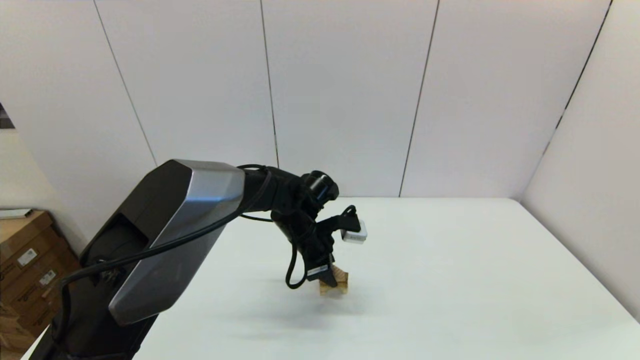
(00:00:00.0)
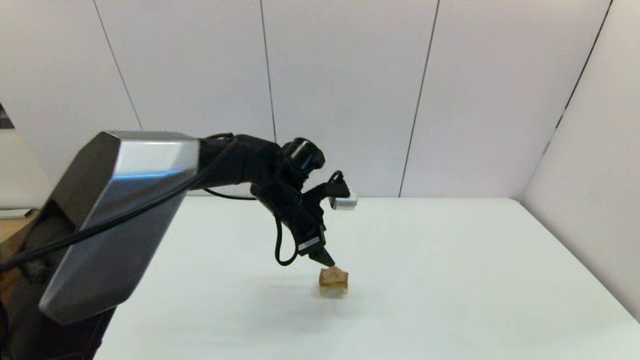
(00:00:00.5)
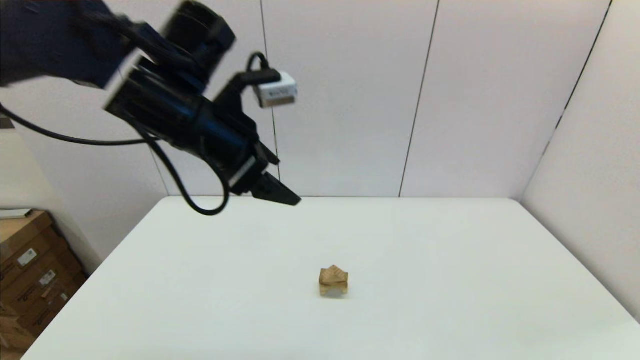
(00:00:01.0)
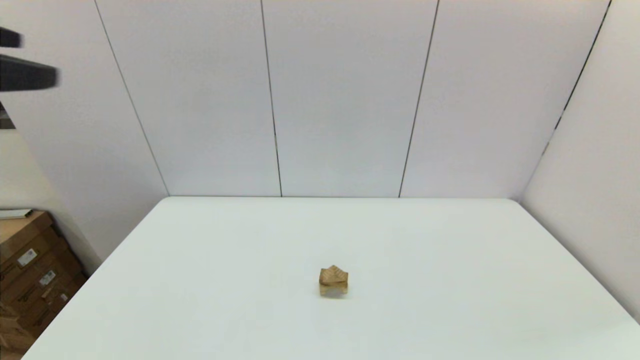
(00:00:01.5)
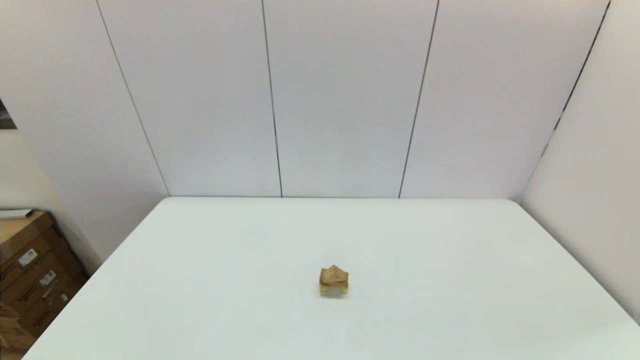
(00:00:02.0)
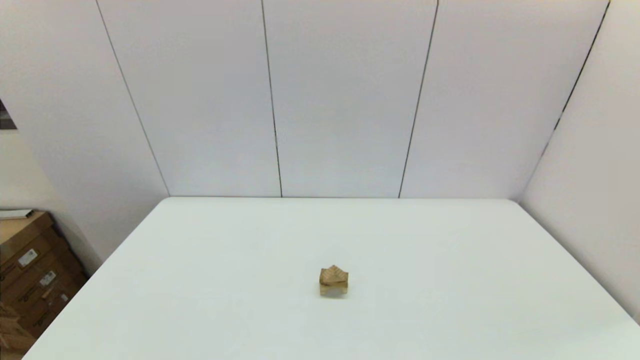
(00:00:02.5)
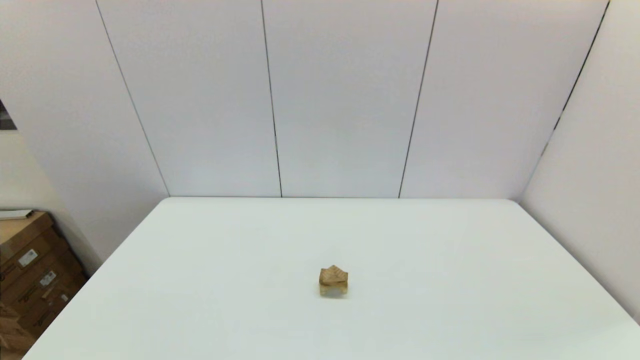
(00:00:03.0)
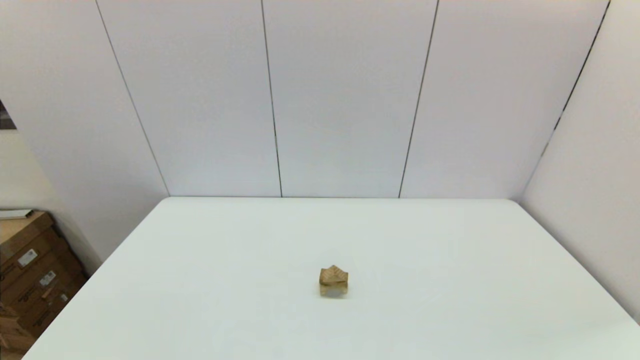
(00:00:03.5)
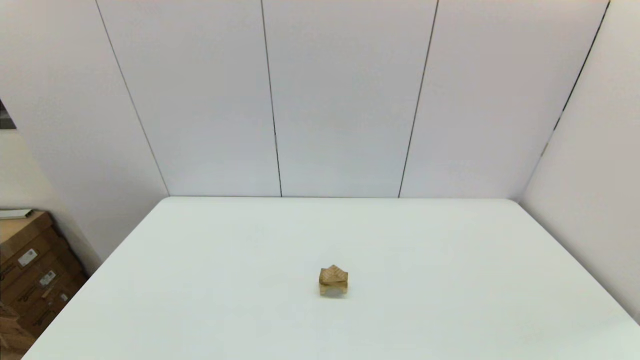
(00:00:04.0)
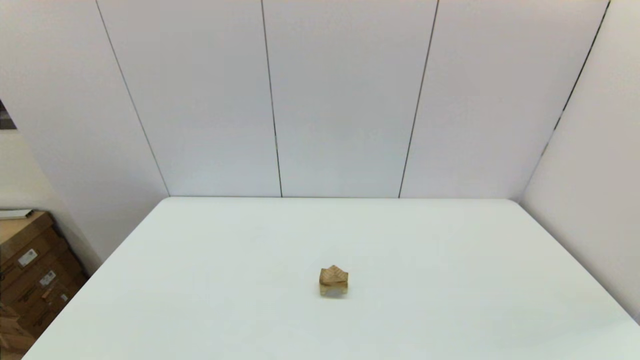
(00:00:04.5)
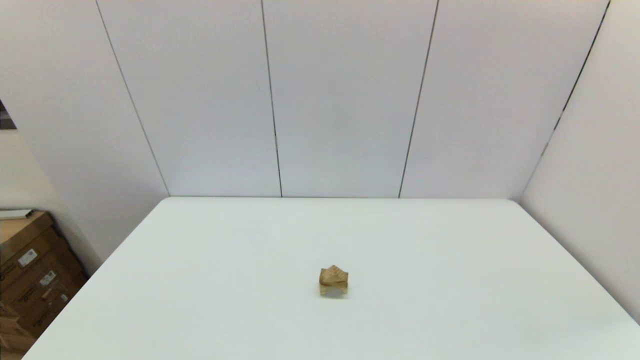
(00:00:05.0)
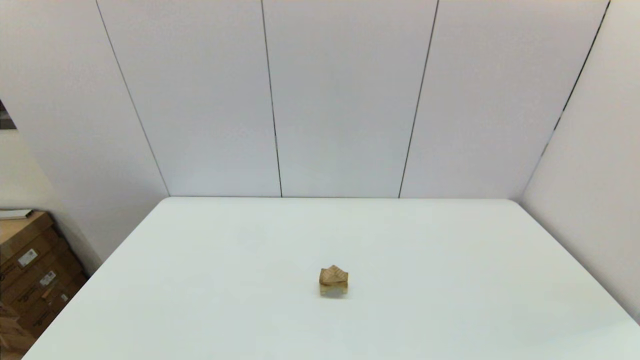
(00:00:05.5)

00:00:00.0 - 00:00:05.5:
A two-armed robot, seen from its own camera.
Task of the whole recording: place the arched building blocks in the center of the table, set up the rectangular building blocks, and then set up the triangular building blocks.
00:00:00.0 - 00:00:02.0: The left gripper shifts roughly 60 cm backward, to the left and upward, and opens its fingers.
